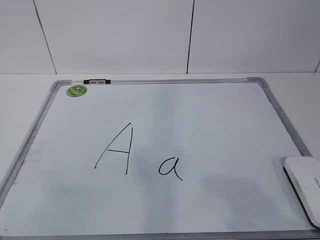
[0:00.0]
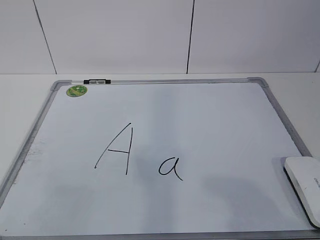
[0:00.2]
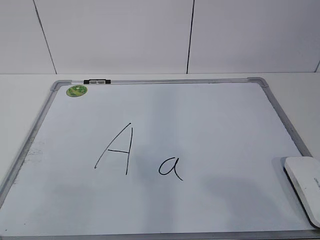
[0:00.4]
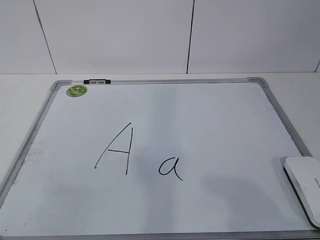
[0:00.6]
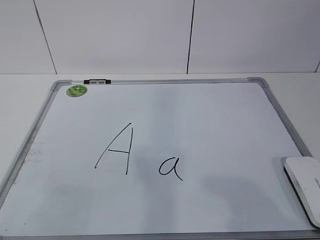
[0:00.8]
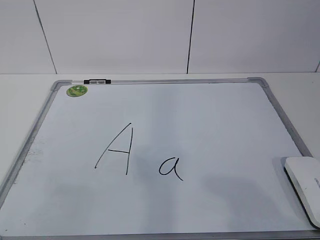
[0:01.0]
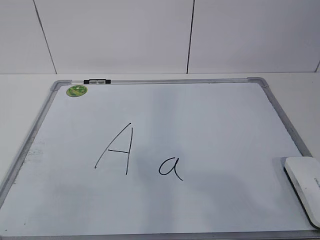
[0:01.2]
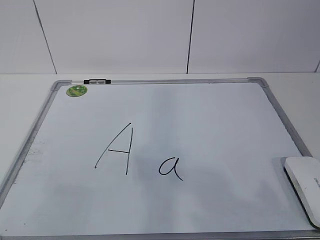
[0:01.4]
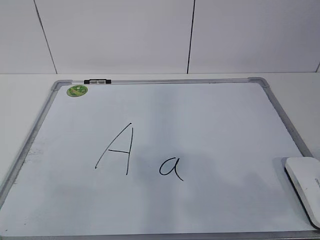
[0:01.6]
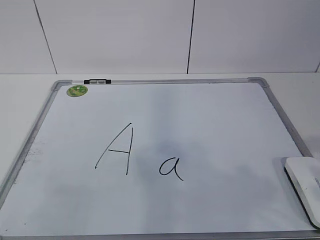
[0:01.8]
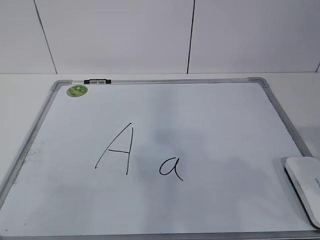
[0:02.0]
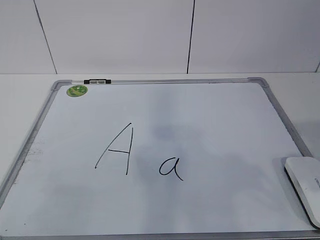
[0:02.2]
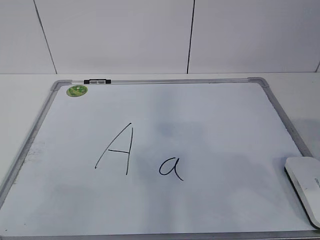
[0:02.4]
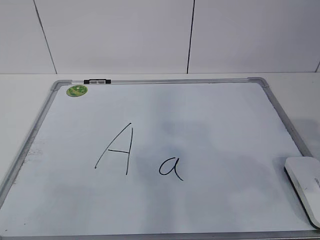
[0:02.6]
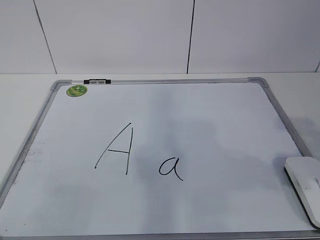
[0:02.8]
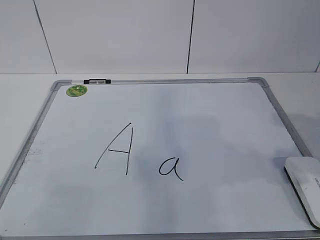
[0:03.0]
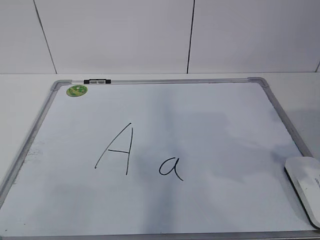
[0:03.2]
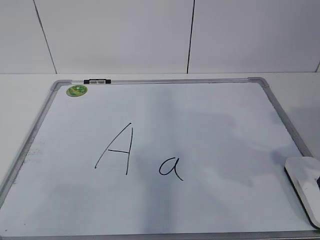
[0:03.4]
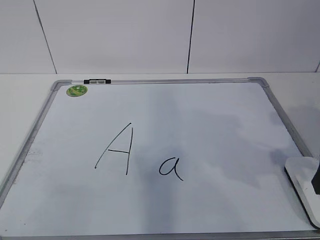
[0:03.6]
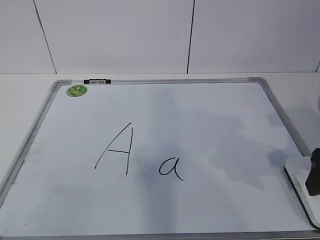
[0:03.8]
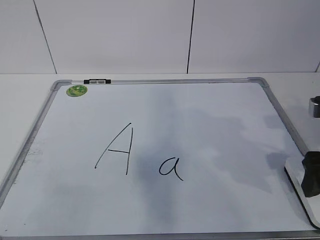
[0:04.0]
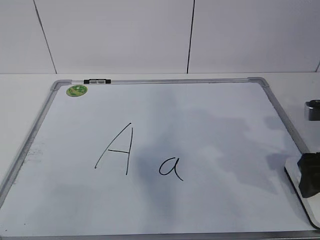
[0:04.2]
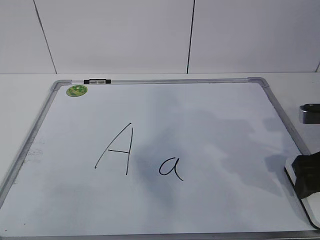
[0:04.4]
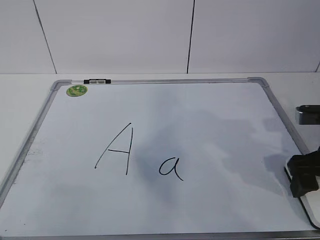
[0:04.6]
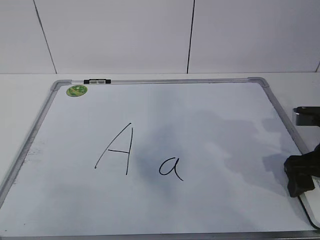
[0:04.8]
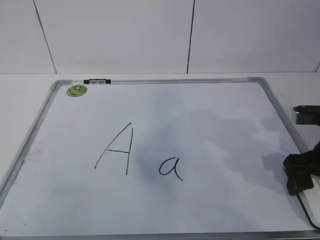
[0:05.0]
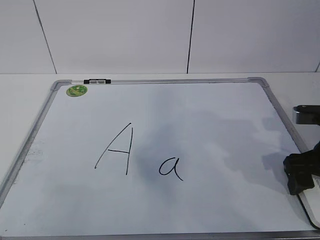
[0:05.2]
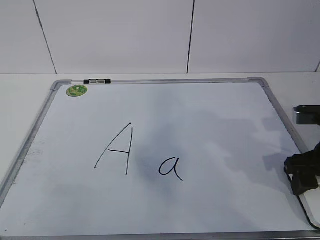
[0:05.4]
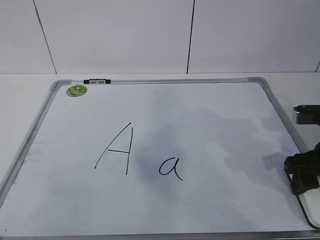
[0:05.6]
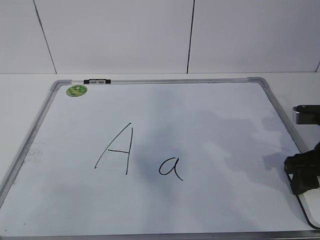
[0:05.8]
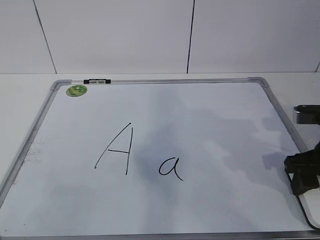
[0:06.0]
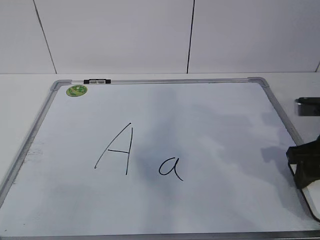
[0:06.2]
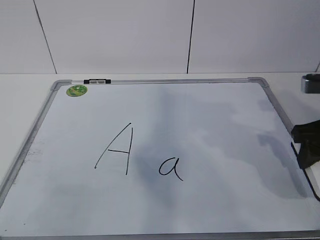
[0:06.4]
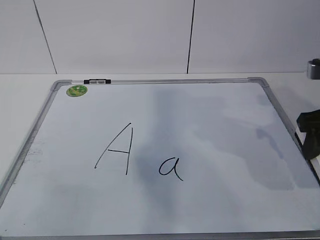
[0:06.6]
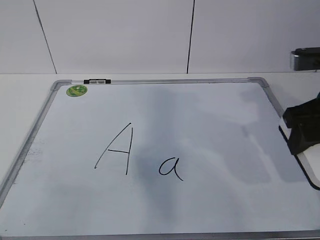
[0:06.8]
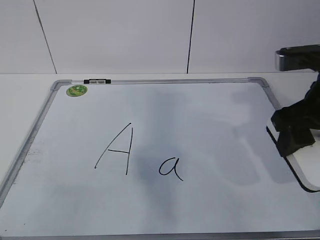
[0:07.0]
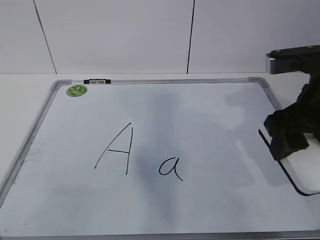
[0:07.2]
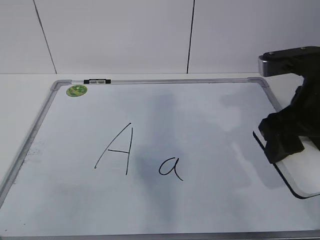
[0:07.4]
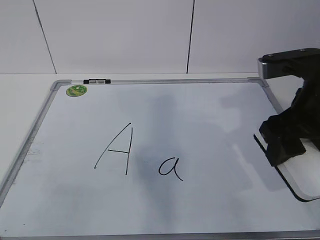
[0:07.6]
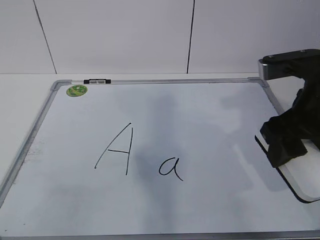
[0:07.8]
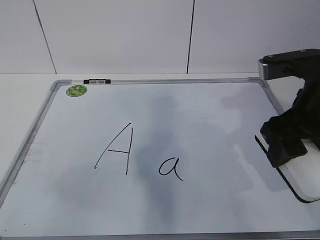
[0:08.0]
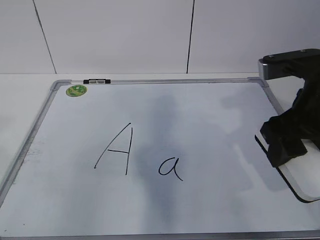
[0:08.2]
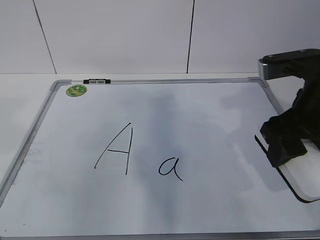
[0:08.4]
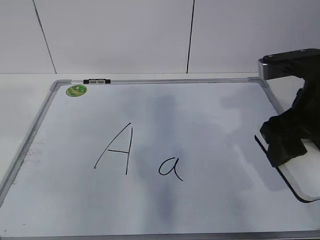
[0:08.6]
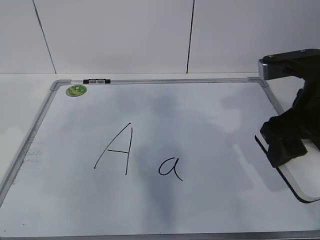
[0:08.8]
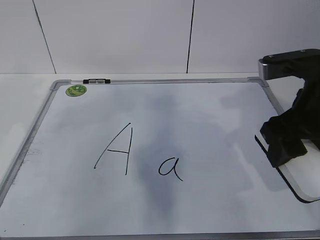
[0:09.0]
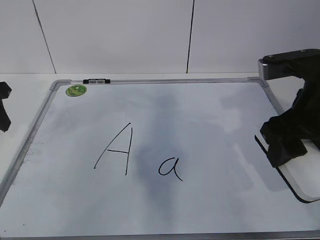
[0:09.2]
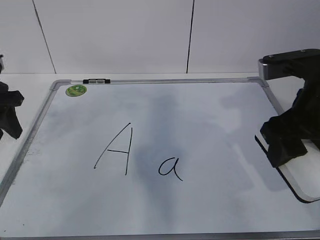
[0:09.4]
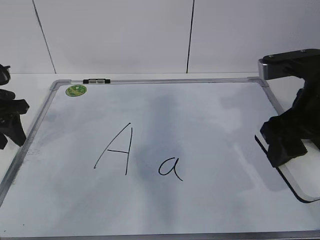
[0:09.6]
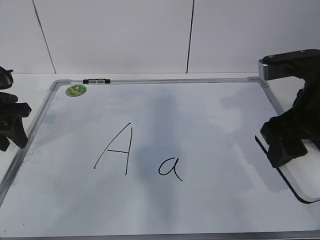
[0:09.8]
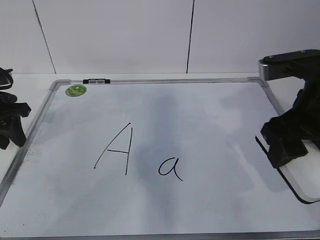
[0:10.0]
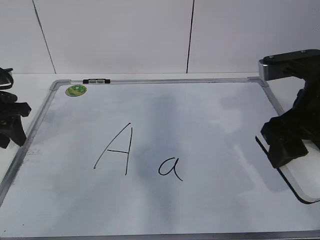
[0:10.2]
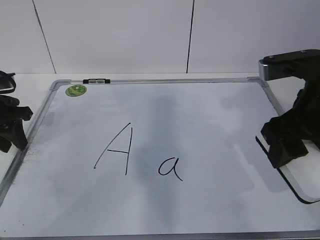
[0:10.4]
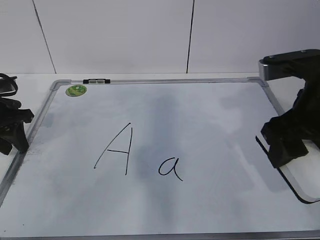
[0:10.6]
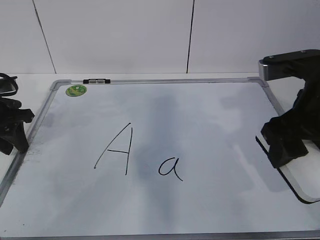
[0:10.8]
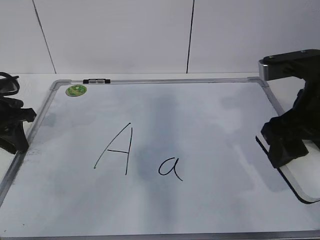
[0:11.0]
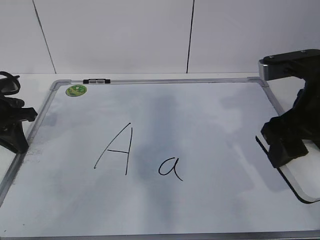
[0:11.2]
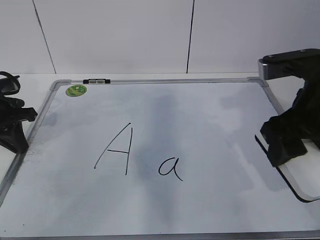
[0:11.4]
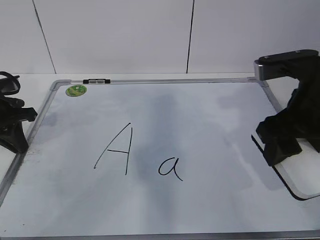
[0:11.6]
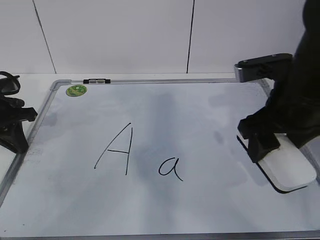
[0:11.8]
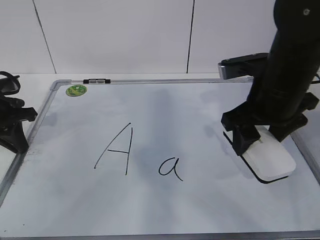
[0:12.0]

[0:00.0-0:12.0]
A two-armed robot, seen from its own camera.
Task of the whole recording: pick up the eraser on the blackboard and erase the letter "a".
Step, 0:04.8 to 0:09.2: Hold the drawing board steady with your left hand.
0:03.0 to 0:04.4: The right gripper is displaced downward and forward by approximately 10 cm.
0:04.4 to 0:06.0: The right gripper closes its fingers.
0:06.0 to 0:07.6: The right gripper is displaced upward and to the left by roughly 10 cm.
0:09.0 to 0:10.4: The left gripper shifts about 10 cm downward and forward.
0:10.4 to 0:12.0: The right gripper shifts some 5 cm forward. The left gripper closes.

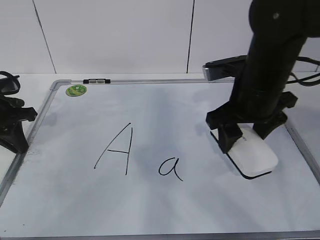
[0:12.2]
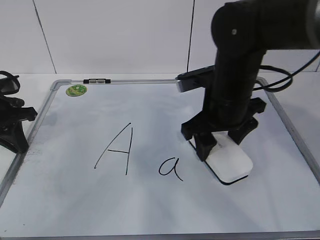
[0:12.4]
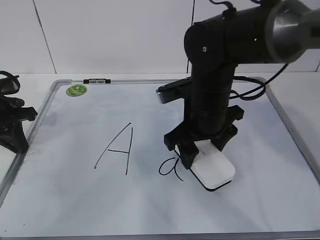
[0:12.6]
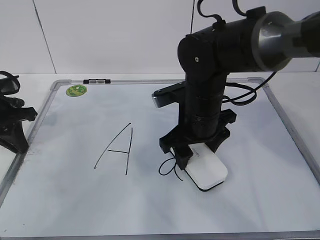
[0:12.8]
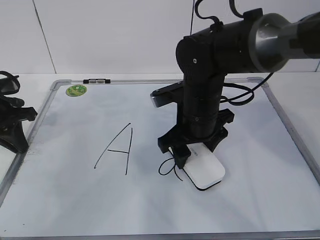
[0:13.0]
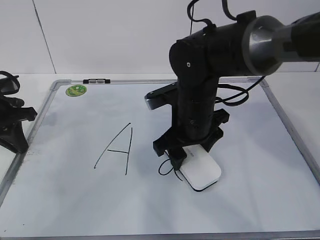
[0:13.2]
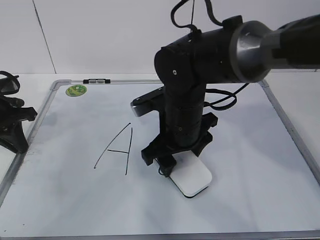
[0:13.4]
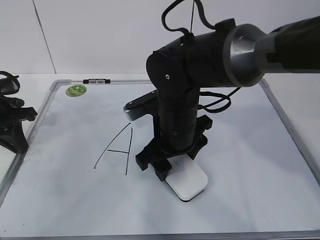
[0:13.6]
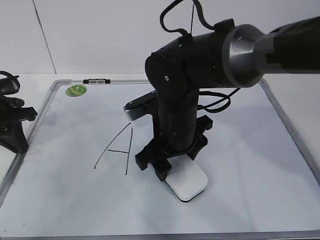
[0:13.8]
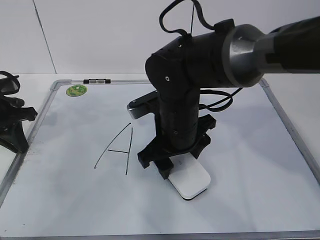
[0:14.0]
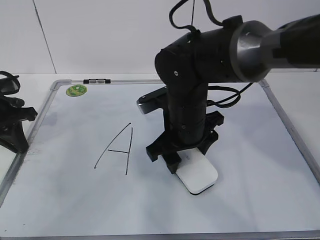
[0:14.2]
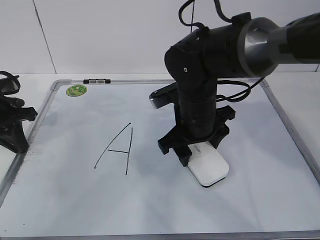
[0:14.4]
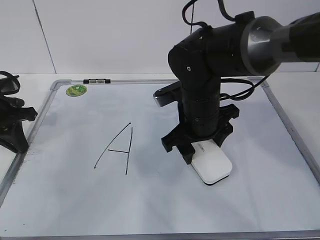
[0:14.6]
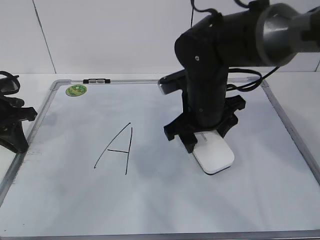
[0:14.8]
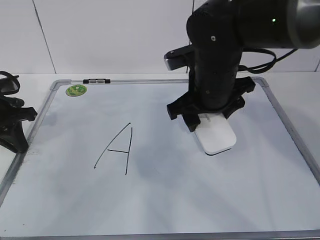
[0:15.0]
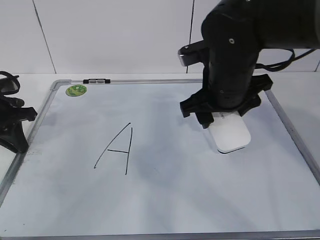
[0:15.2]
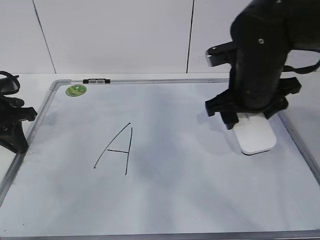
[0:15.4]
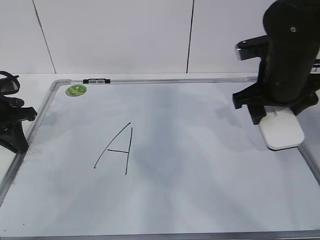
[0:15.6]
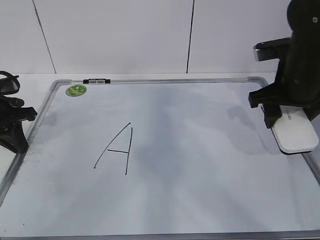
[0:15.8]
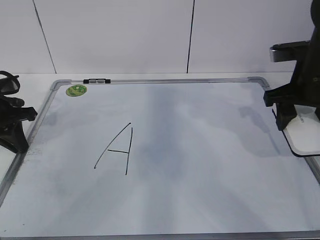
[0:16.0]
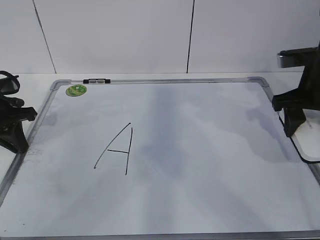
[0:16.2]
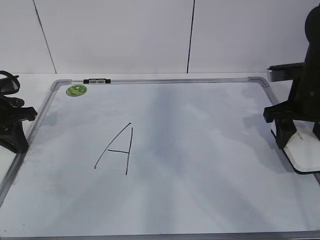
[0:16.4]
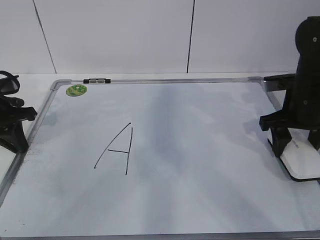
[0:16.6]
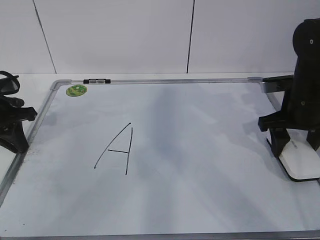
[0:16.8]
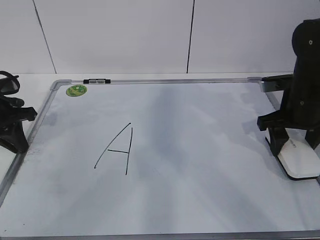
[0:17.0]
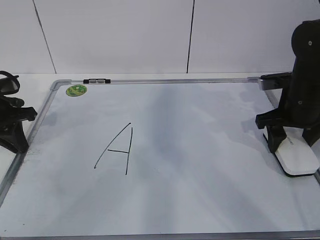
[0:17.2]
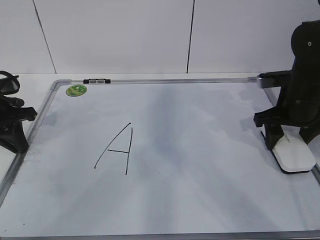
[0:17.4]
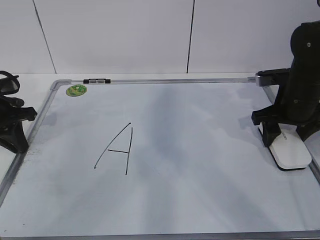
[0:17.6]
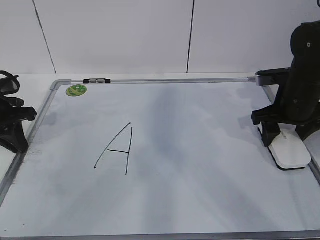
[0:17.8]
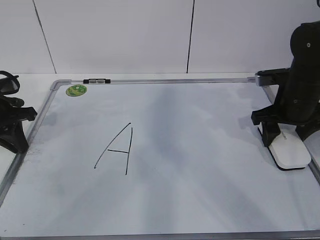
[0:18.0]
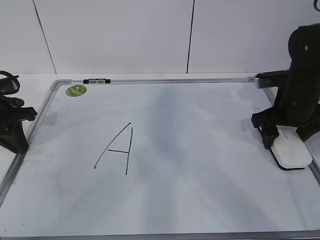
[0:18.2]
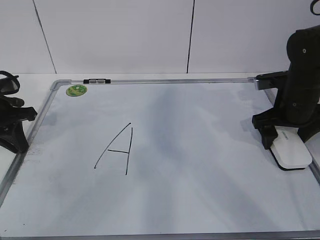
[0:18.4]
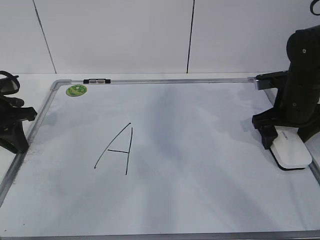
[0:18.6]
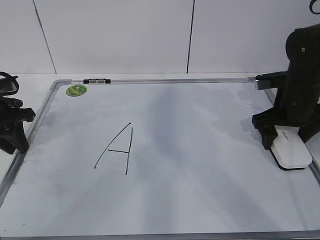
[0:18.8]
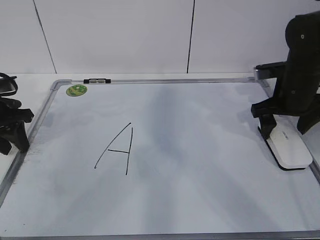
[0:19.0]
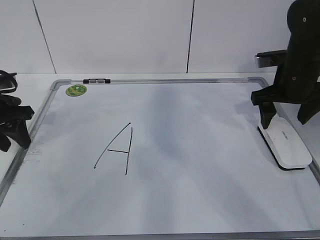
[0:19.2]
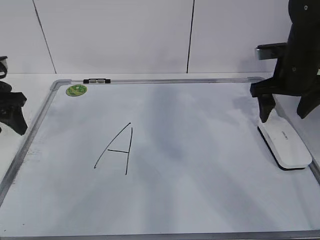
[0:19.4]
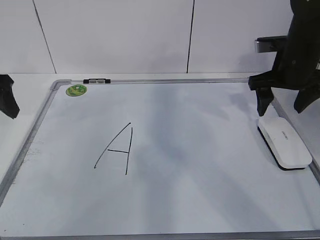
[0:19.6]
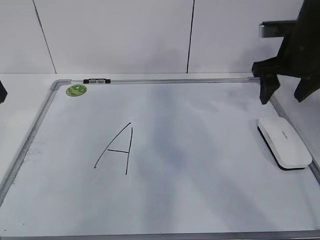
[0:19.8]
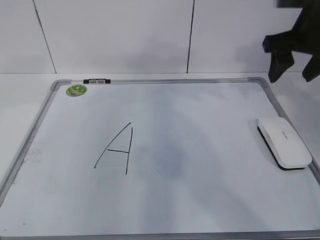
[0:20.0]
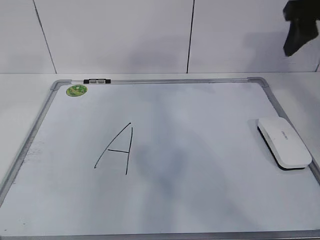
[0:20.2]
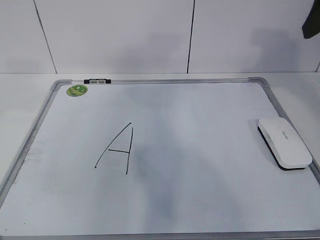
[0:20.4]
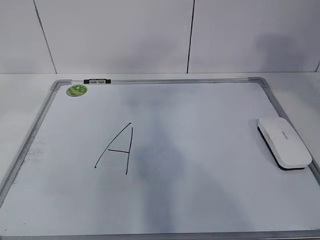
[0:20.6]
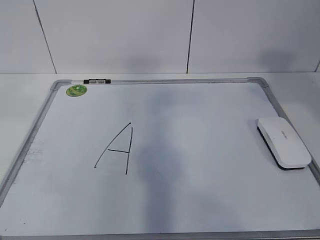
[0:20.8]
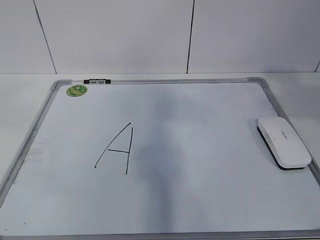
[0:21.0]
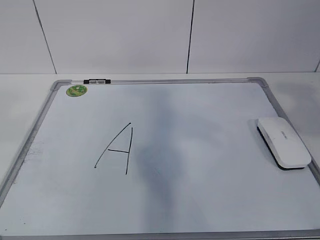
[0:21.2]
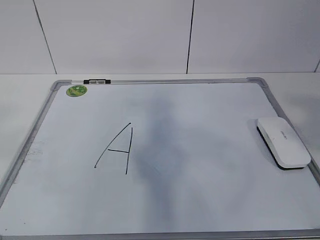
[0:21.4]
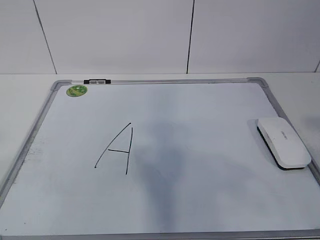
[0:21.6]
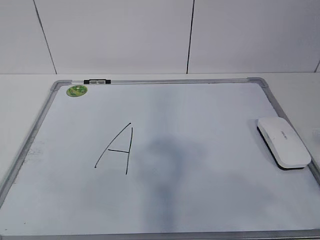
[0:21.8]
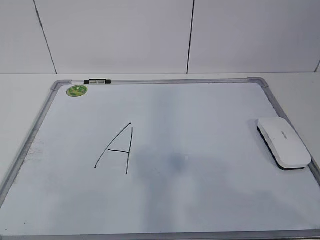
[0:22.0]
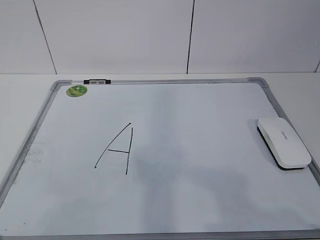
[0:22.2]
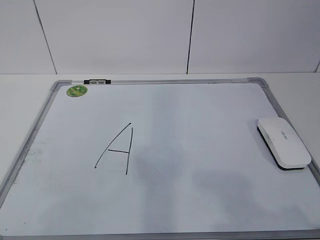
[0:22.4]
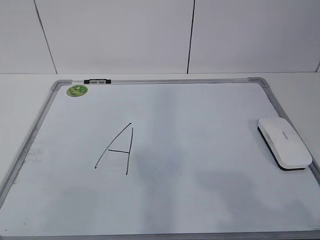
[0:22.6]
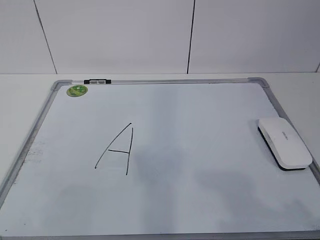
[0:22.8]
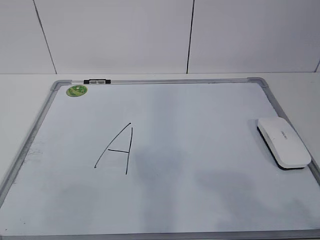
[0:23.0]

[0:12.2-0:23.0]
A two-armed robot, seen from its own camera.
Task of the whole recording: pick up the eraser on the blackboard and erase the letter "a".
0:12.2 to 0:13.8: The right gripper travels to the left and downward by approximately 15 cm.
0:13.8 to 0:15.2: The right gripper travels to the right and upward by roughly 10 cm.
0:15.2 to 0:16.8: The right gripper travels to the right by roughly 15 cm.
0:16.8 to 0:18.4: The right gripper opens up.
0:18.4 to 0:20.0: The right gripper heads upward, covering about 15 cm, and closes. Meanwhile the left gripper shifts some 20 cm upward and backward, and opens up.
0:20.0 to 0:21.4: The two grippers go roughly 30 cm backward.
0:21.4 to 0:23.0: The right gripper shifts about 15 cm downward and backward, while the left gripper travels downward by about 15 cm.
